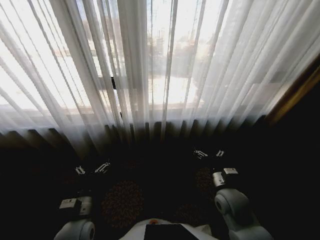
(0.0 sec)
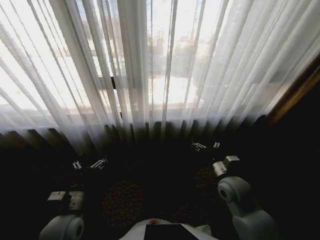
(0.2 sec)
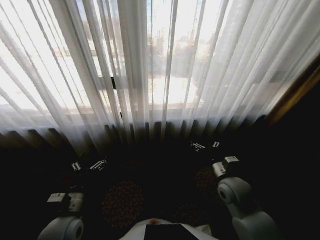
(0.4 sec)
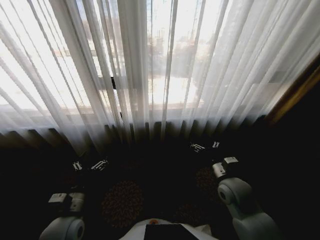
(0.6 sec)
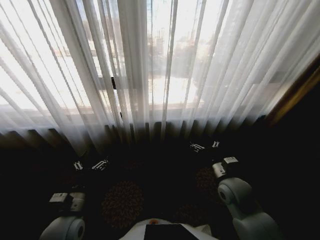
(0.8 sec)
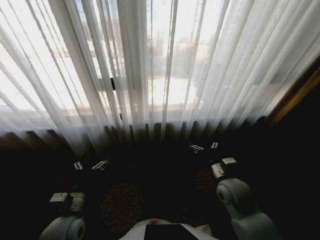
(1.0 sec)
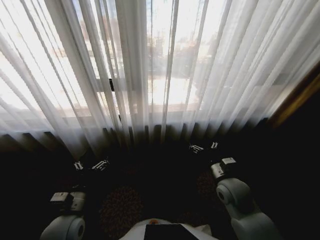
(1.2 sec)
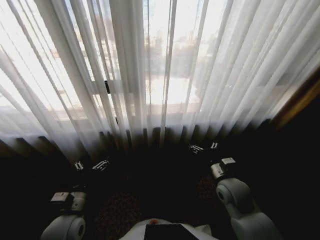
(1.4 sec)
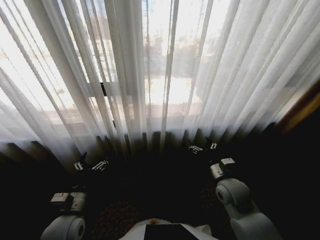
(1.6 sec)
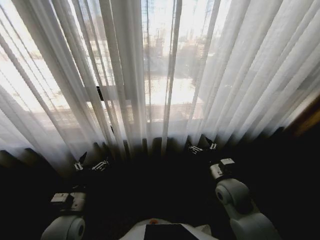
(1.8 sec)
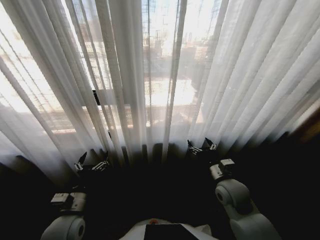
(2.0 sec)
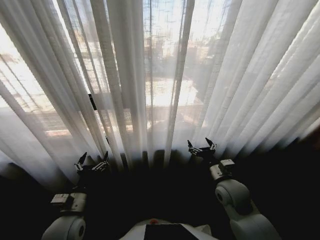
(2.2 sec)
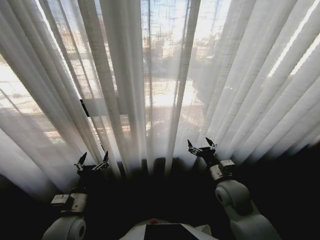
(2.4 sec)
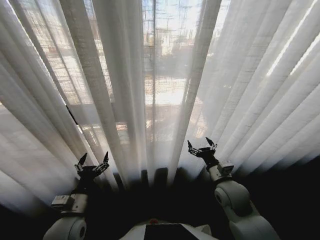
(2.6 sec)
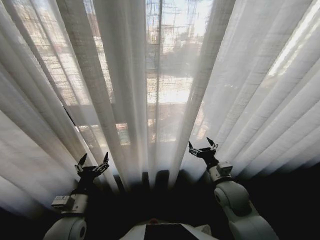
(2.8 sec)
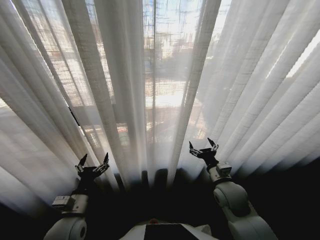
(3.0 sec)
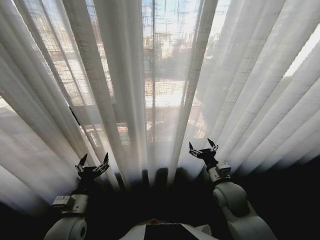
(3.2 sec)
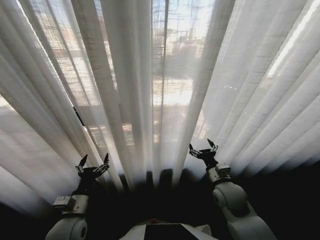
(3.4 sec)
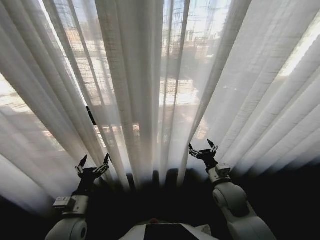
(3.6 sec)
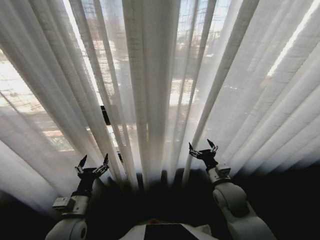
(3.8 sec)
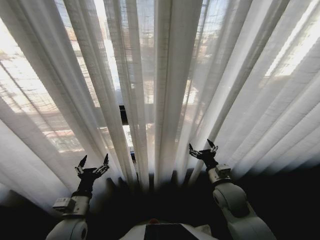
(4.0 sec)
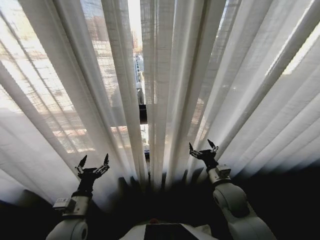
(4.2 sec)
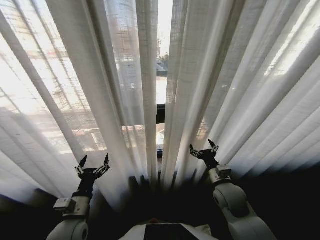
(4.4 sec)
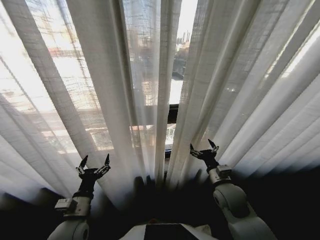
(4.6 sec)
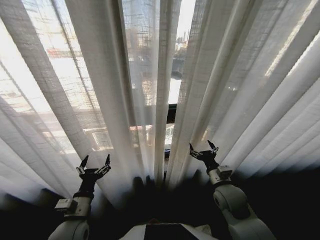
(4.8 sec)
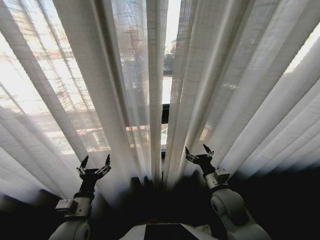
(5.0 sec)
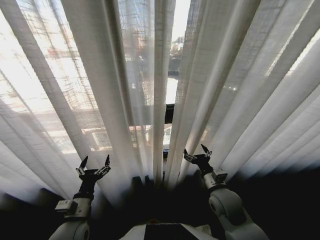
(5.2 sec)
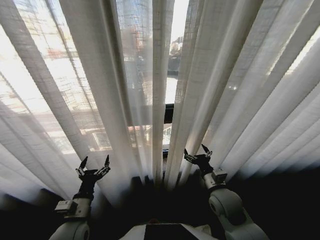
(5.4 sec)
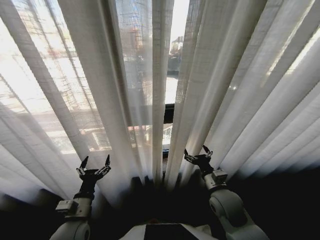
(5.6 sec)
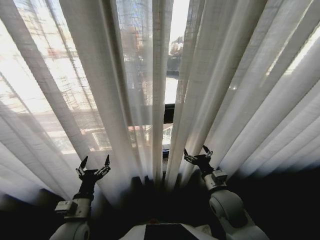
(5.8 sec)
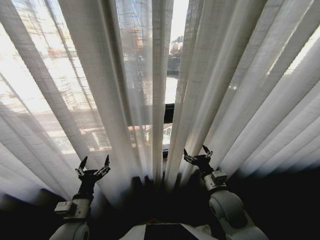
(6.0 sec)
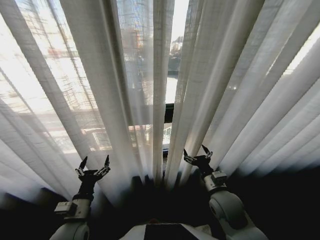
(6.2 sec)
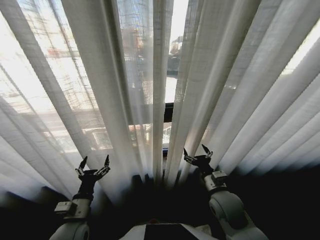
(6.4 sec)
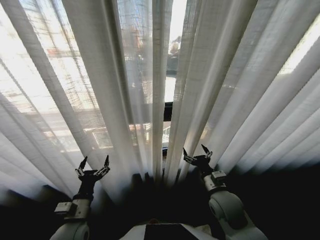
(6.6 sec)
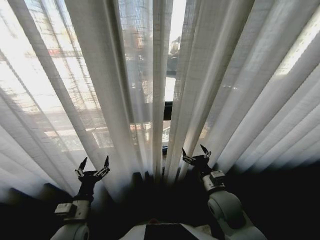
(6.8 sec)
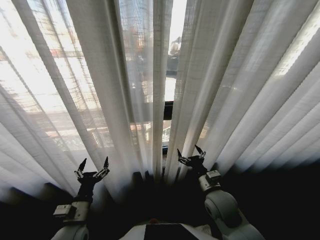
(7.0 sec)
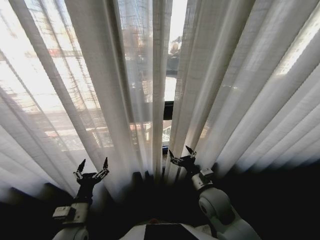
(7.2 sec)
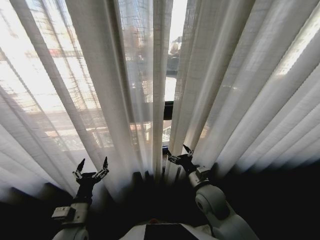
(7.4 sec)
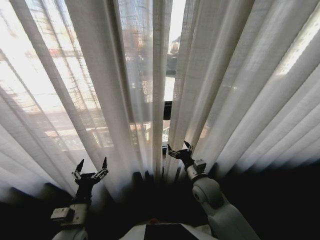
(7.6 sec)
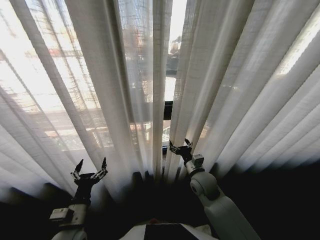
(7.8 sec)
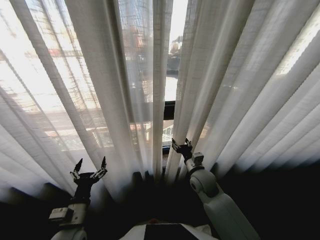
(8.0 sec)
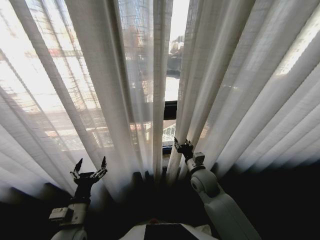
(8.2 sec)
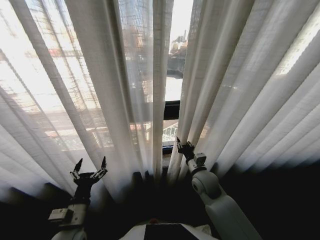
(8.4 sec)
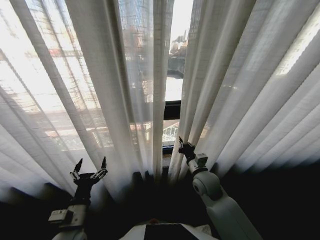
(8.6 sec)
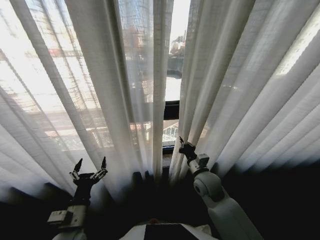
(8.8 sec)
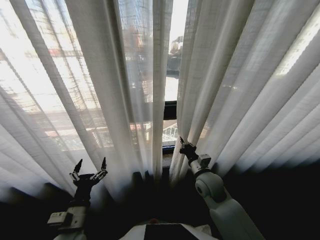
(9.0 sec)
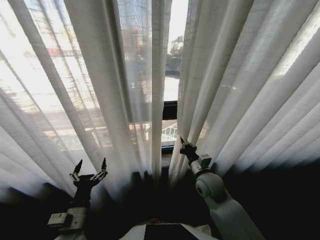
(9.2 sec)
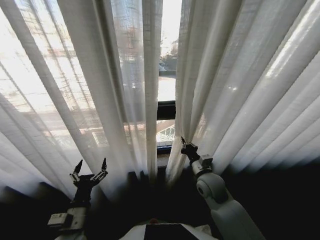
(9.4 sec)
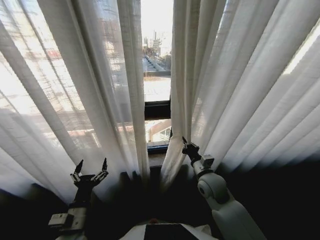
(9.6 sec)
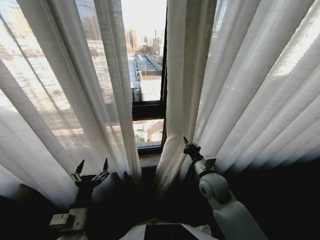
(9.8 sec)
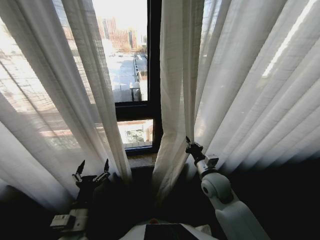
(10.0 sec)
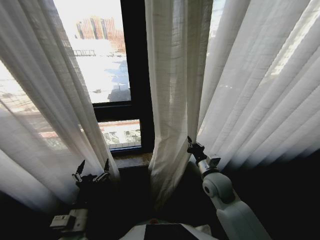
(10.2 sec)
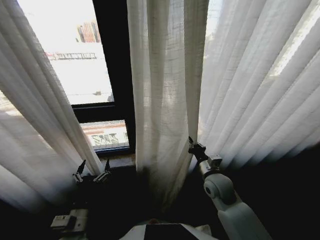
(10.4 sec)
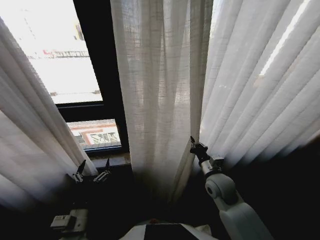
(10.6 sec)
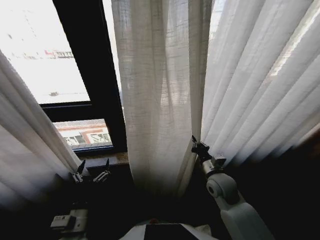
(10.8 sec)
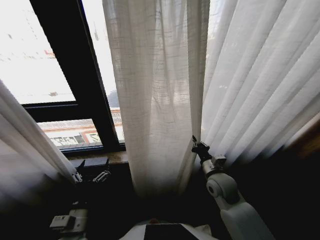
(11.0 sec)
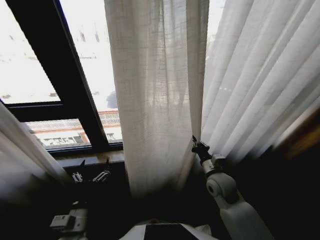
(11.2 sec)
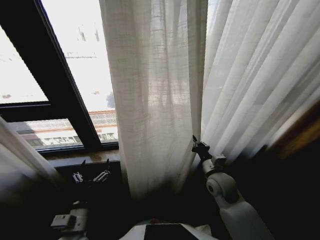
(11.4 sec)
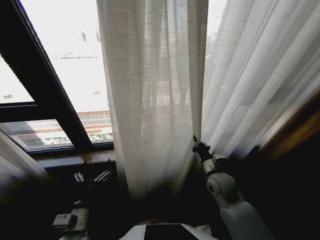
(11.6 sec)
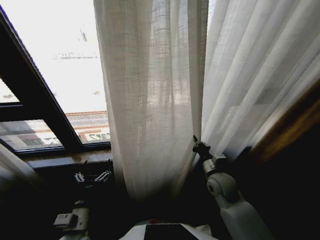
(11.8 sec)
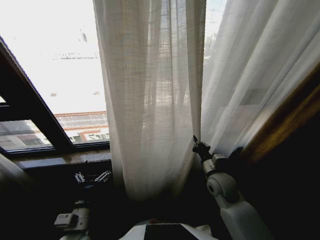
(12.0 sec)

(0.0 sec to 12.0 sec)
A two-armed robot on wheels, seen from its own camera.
Task of the whole recording: Open the curtains by pulling them apart, changing their state from closed to fully open.
6.0 sec - 7.6 sec: The right gripper ends up some 5 cm from where it was.
7.6 sec - 9.0 sec: The right gripper closes up.

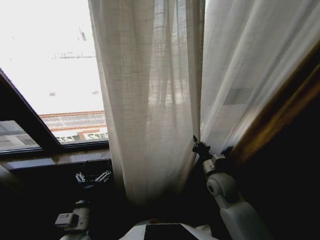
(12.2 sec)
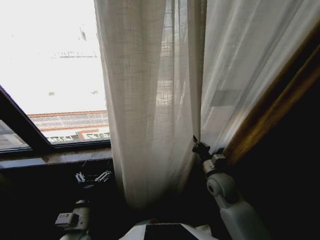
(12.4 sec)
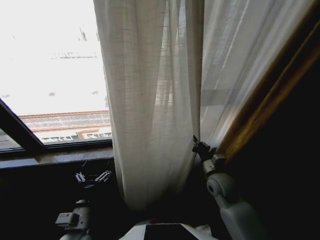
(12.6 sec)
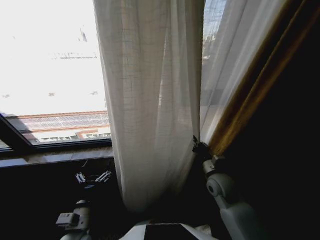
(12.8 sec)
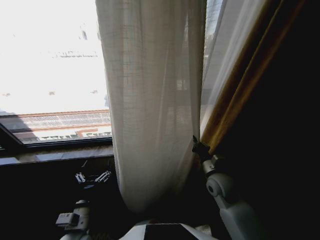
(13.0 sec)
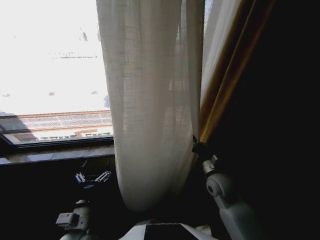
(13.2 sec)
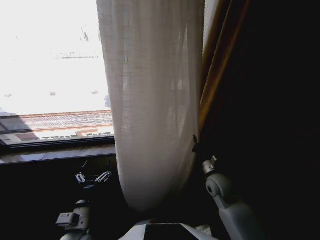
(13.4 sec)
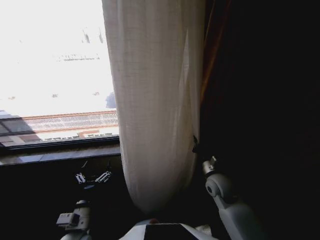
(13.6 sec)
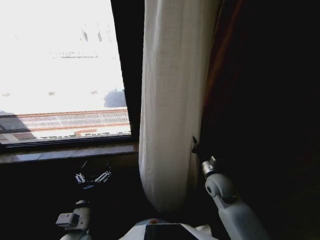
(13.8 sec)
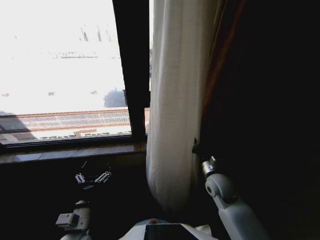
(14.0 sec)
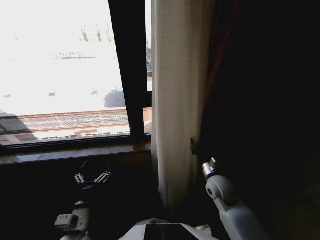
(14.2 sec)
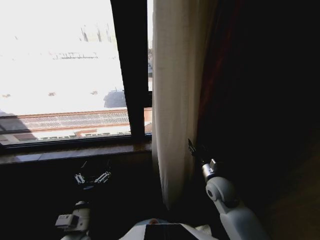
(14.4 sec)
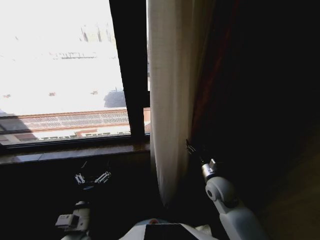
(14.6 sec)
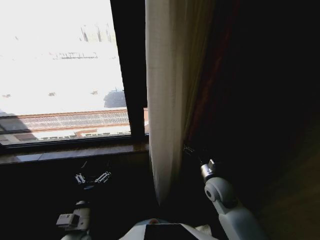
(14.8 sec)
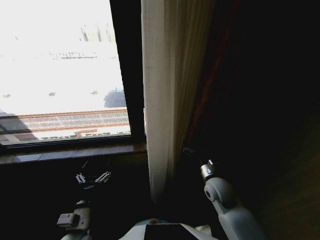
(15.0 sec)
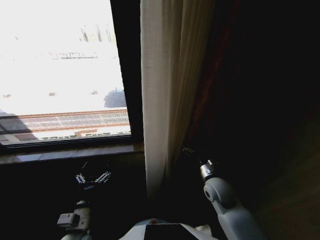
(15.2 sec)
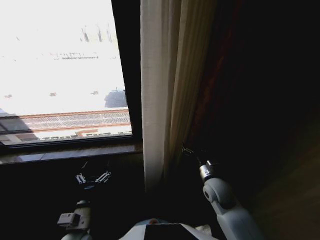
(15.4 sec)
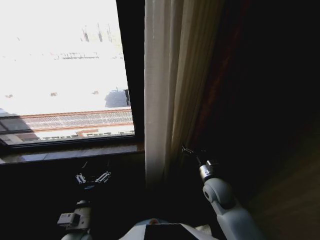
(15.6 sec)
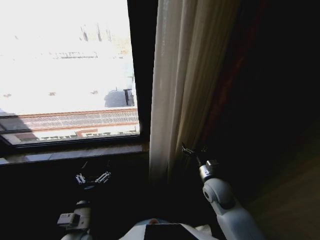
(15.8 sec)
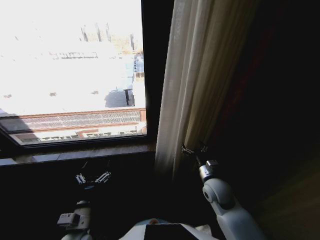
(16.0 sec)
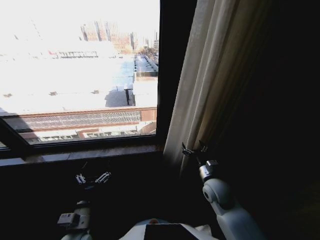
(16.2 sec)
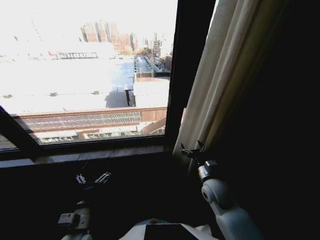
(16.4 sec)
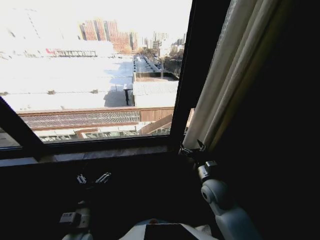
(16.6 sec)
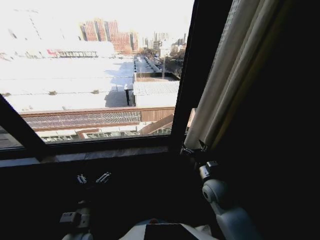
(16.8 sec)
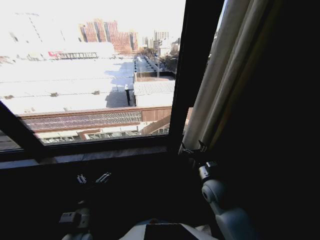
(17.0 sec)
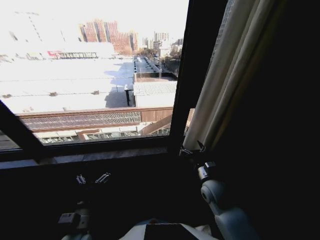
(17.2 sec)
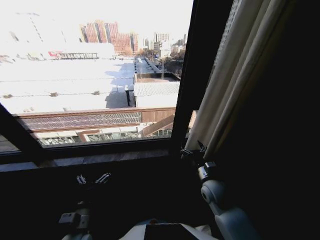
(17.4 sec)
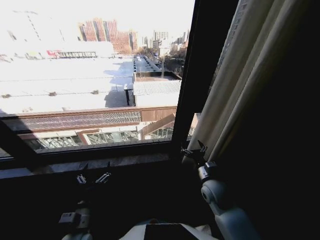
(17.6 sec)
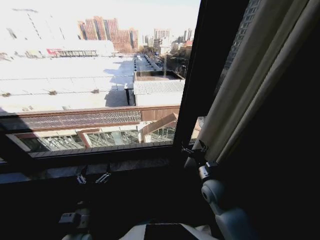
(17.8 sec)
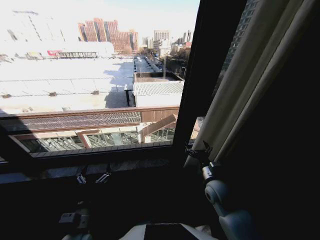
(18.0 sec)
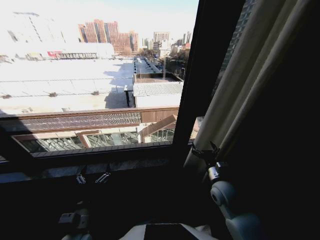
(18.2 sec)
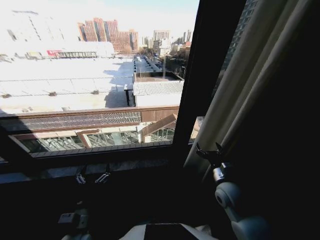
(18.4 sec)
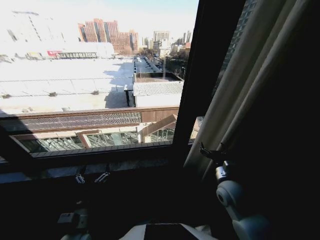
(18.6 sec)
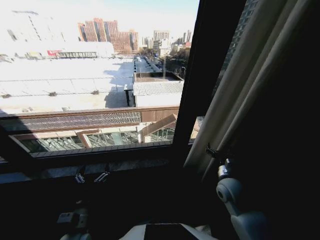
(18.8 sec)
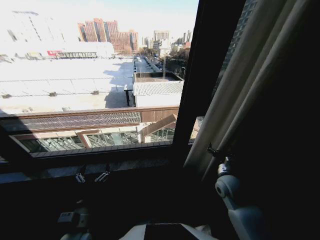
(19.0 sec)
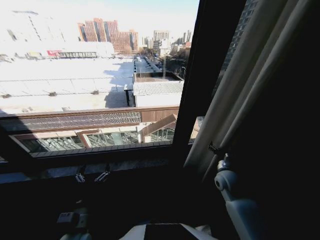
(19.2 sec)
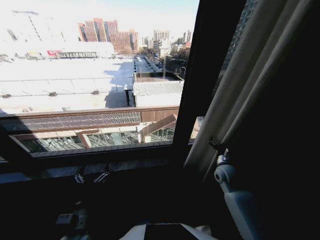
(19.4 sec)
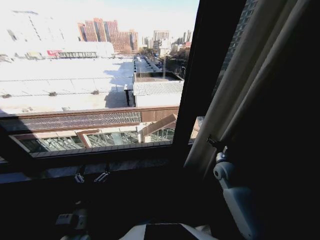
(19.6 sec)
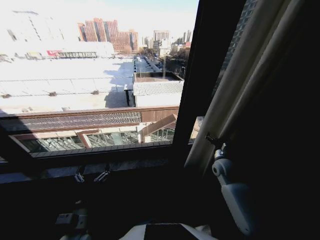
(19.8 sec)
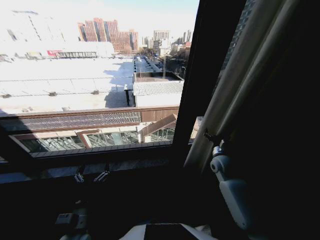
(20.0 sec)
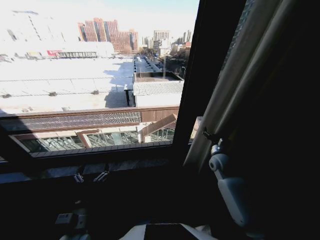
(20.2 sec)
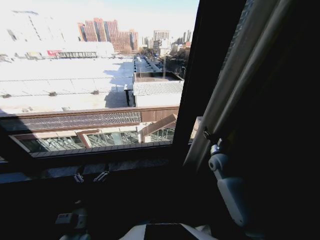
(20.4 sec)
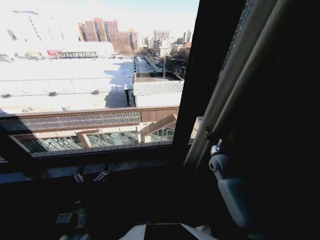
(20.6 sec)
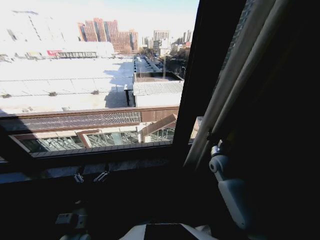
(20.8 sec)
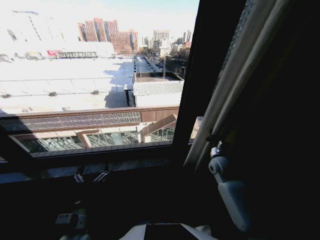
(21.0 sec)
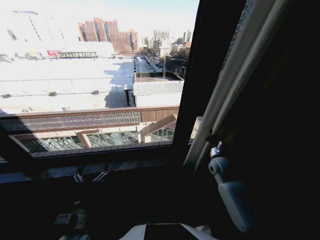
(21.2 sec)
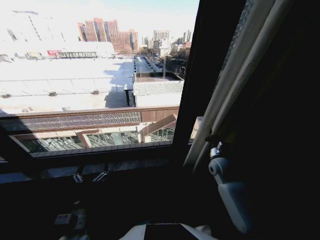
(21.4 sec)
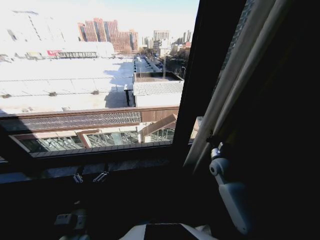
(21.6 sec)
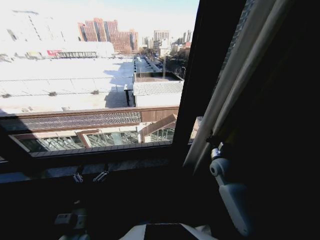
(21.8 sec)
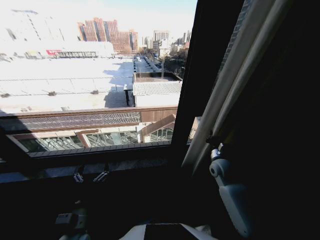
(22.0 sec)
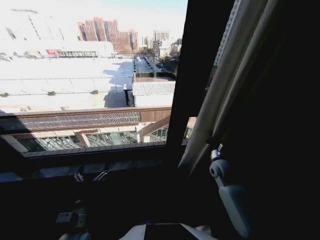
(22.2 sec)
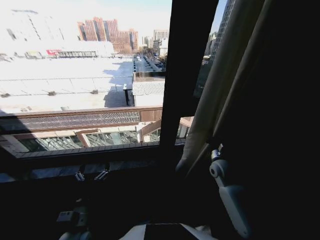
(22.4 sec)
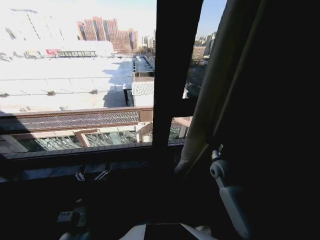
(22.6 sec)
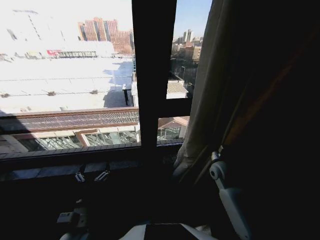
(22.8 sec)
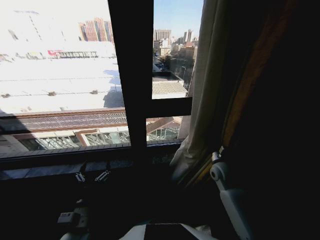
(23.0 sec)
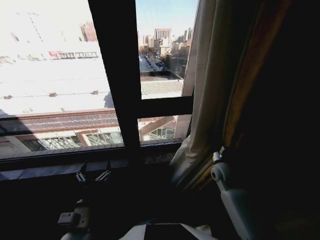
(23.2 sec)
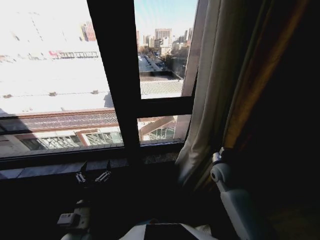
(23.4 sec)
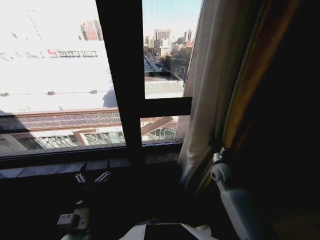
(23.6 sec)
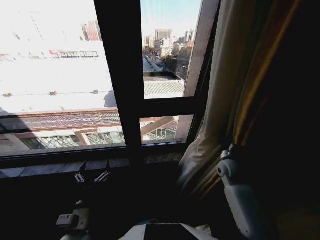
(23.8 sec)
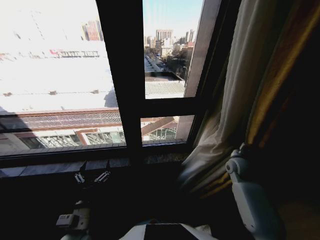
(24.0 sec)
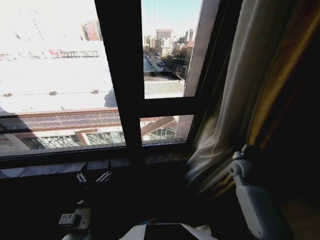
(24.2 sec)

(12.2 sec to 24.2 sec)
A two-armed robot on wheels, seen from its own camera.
Task of the whole recording: Open the curtains by pulling them apart, changing their state from closed to fully open.
13.8 sec - 15.2 sec: The right gripper opens its fingers.
18.2 sec - 19.8 sec: The right gripper is displaced forward and to the right by roughly 10 cm.
19.8 sec - 21.2 sec: The right gripper closes up.
22.6 sec - 24.2 sec: The right gripper heads to the right, covering about 10 cm.
